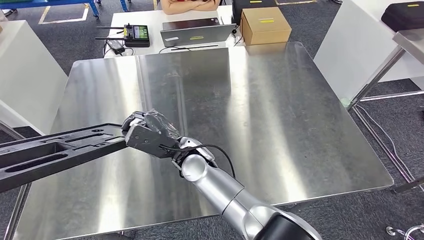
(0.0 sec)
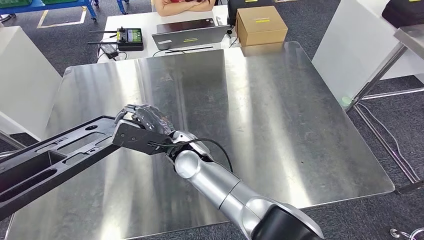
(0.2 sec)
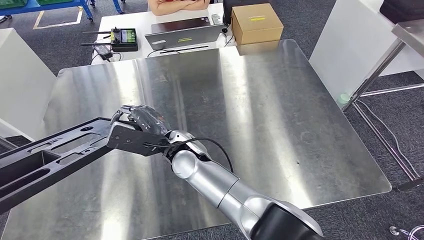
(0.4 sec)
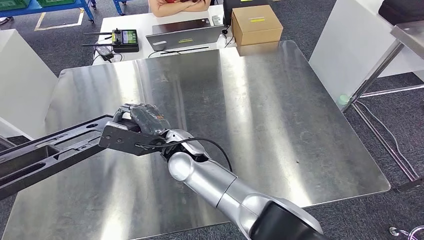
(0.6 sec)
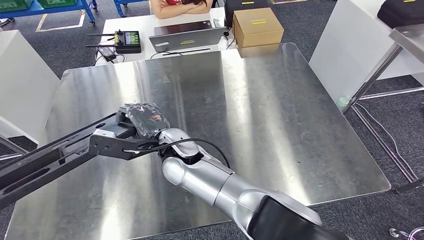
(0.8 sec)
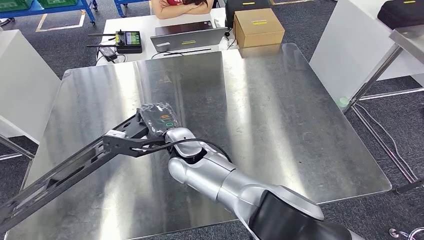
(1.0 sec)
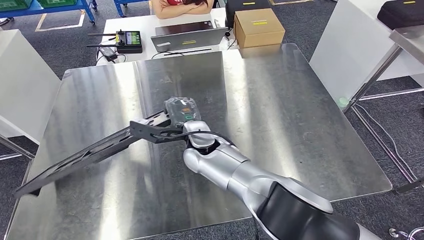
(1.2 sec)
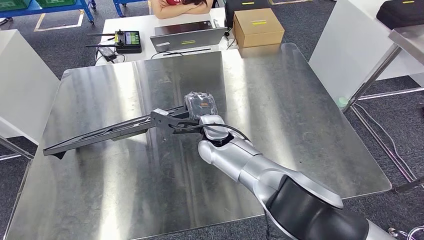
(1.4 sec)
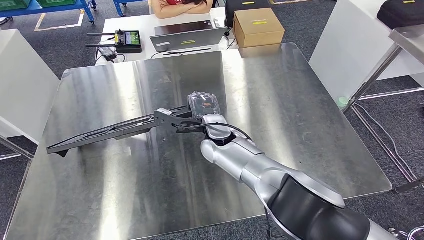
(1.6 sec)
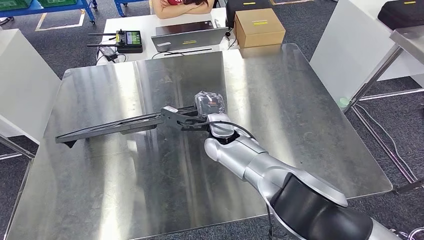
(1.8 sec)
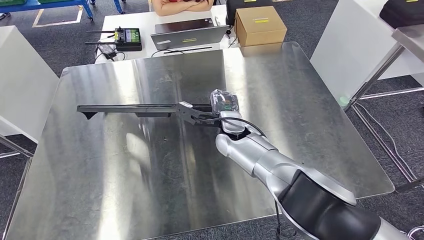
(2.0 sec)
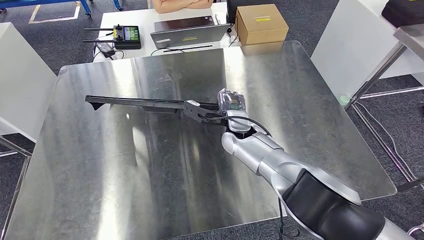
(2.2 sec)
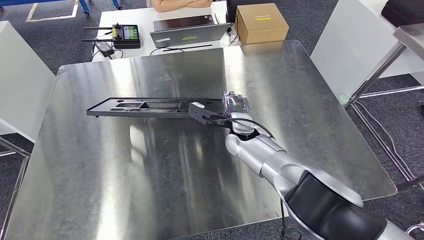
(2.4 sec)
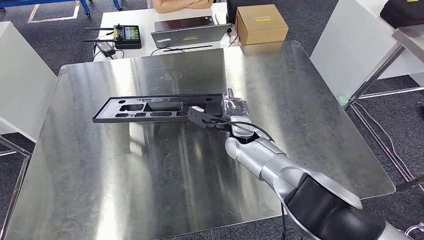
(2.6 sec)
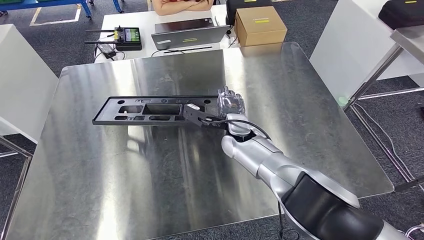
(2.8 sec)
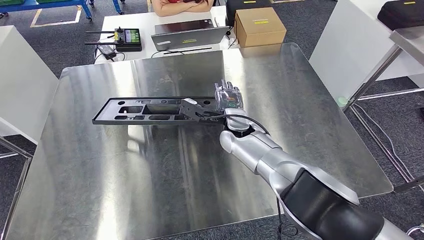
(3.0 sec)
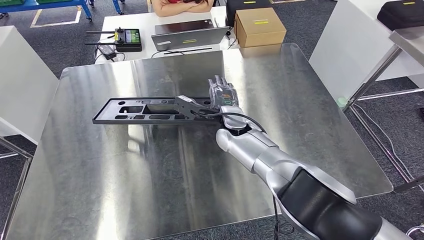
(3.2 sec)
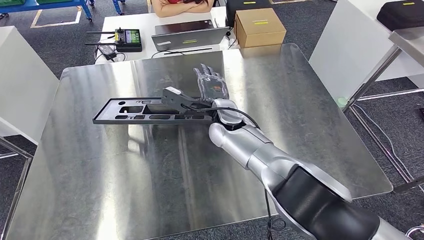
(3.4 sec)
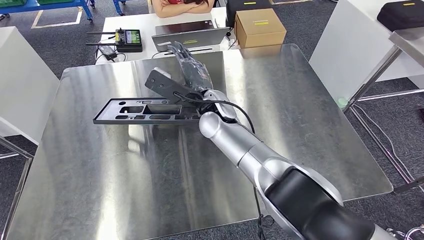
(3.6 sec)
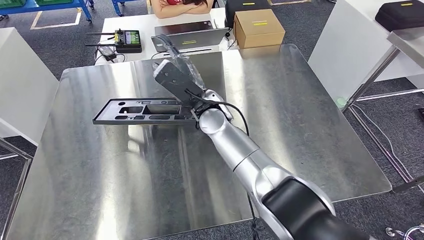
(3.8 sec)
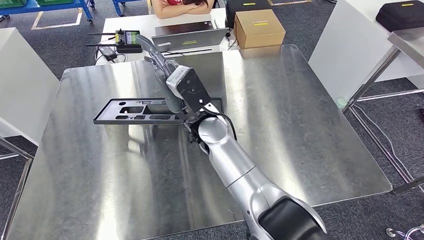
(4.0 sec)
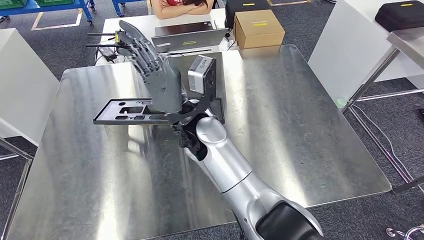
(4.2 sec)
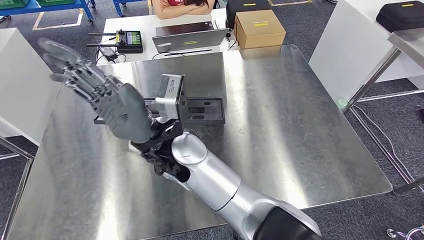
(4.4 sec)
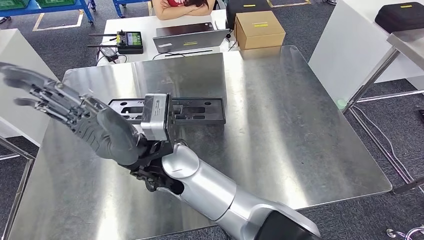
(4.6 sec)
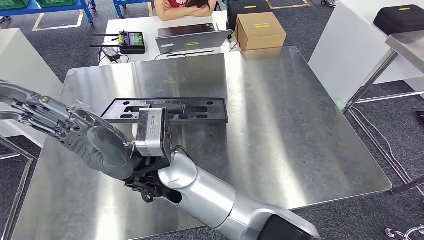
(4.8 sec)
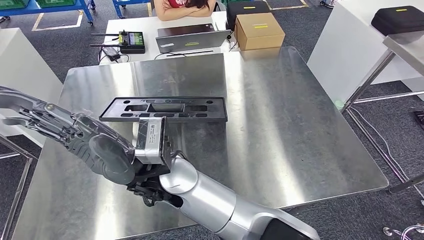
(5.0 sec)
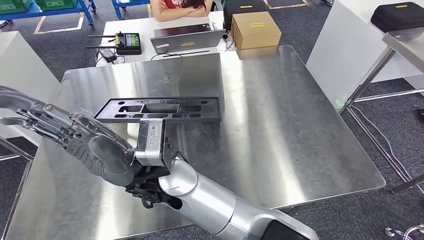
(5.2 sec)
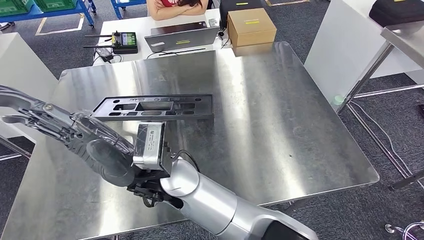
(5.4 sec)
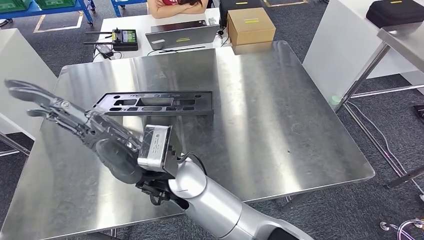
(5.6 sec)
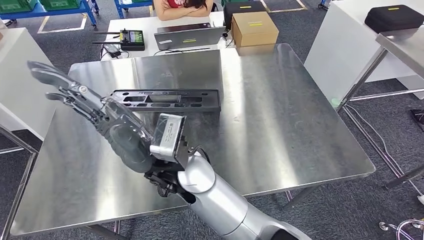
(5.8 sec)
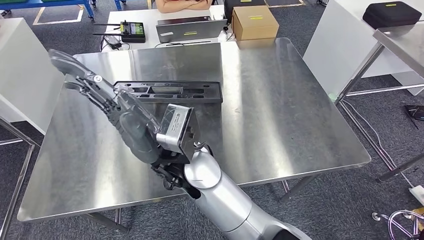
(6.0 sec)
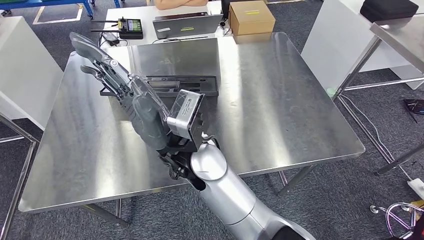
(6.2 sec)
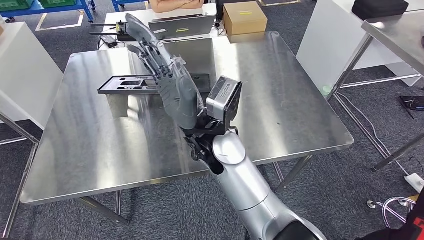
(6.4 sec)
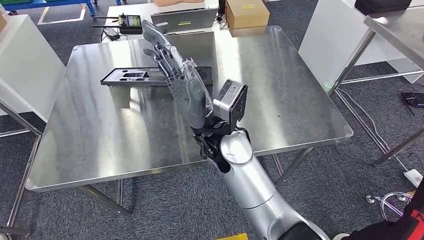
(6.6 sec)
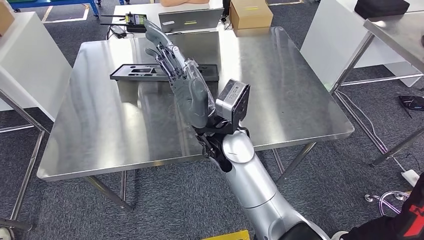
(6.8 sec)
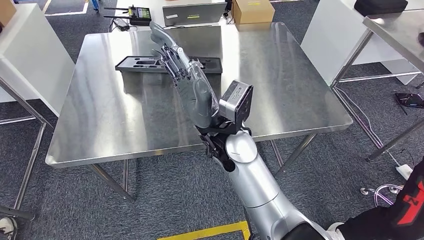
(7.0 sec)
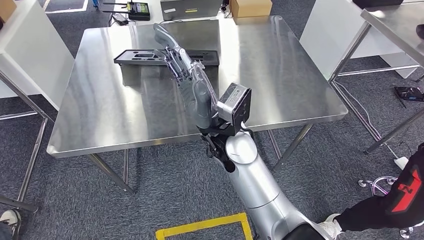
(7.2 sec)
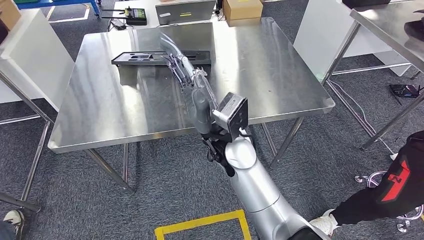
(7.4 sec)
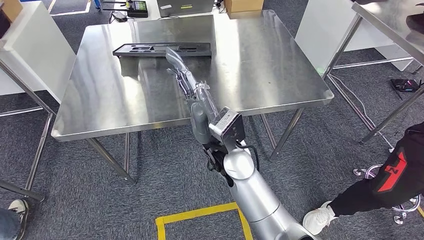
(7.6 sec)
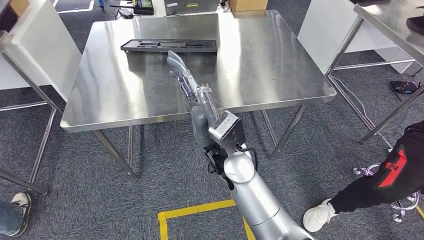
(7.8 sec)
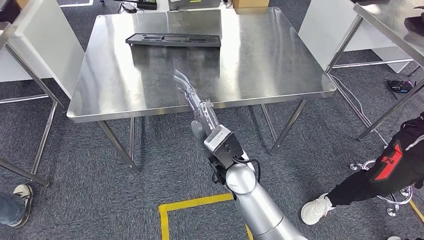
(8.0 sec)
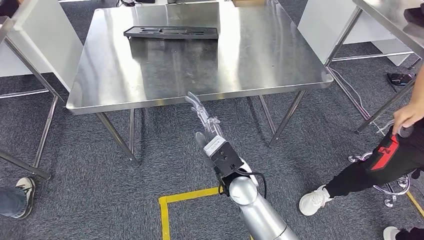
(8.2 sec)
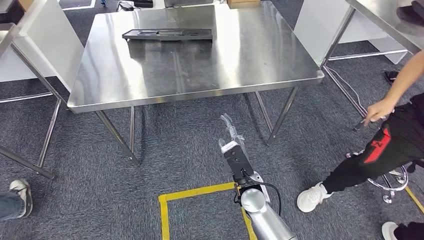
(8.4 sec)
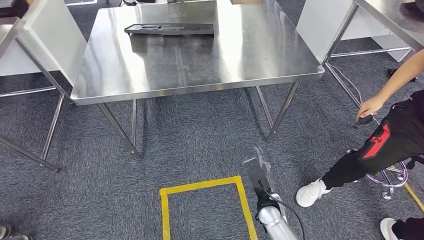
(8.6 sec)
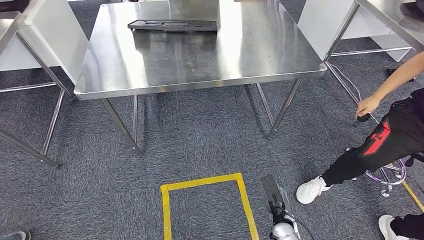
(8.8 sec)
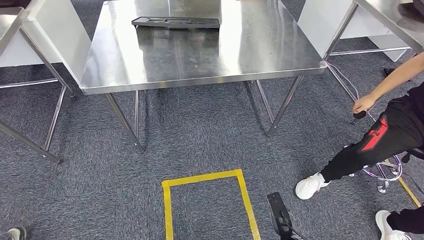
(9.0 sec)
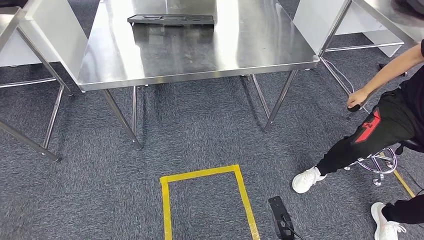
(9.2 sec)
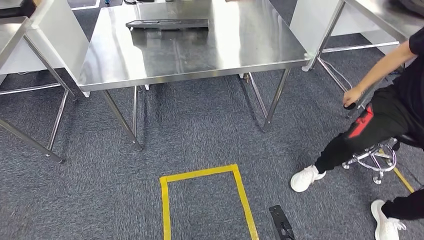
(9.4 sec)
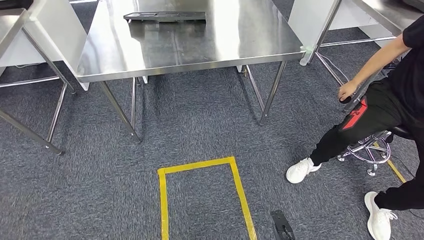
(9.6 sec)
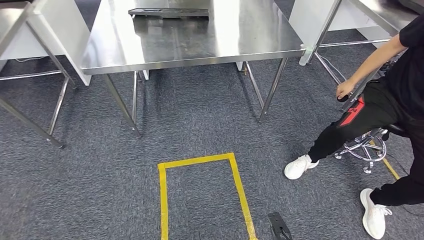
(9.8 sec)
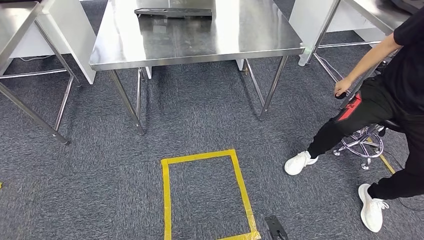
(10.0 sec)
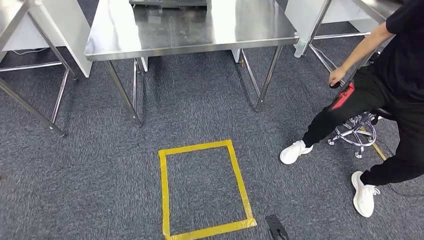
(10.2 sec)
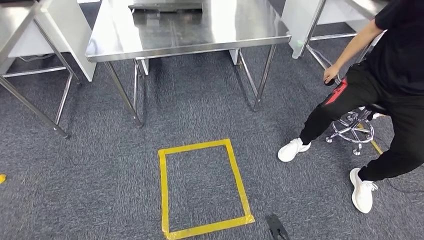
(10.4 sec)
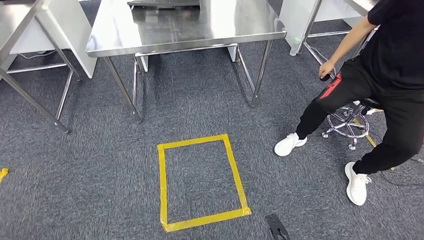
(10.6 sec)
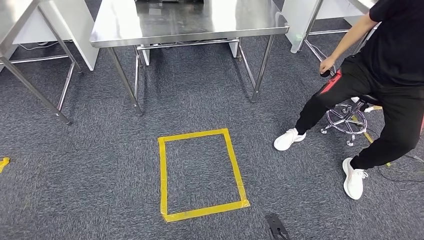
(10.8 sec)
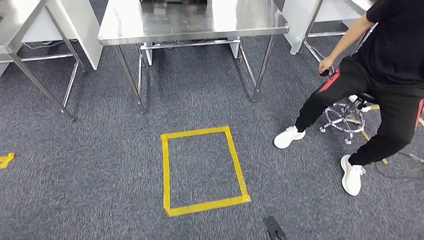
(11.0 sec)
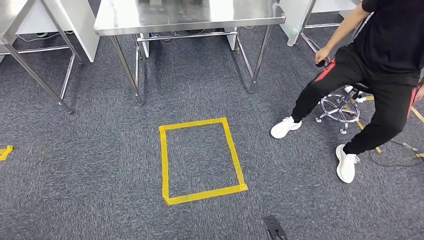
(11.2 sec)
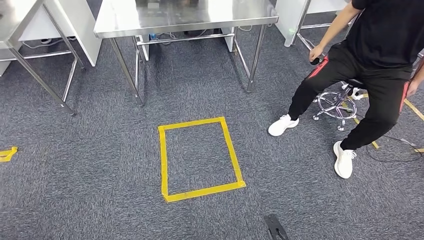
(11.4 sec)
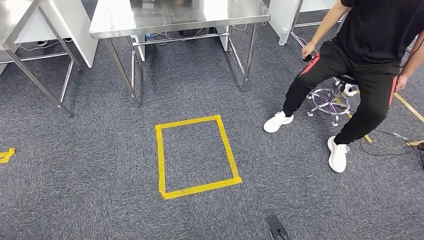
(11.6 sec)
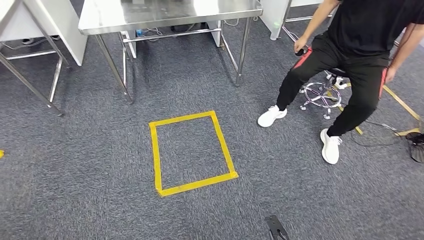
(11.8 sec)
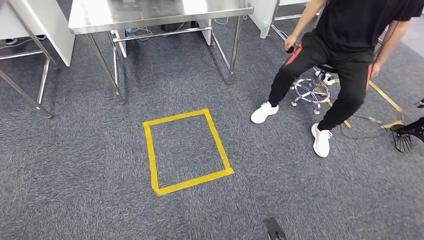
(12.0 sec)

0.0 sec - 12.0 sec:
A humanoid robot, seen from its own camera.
Step, 0.0 sec - 8.4 sec: Insert the large material into the corresponding hole on the workbench.

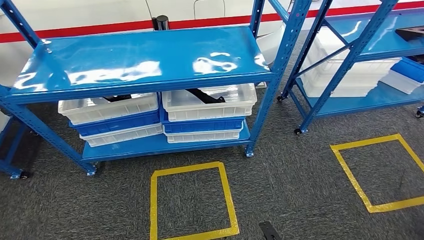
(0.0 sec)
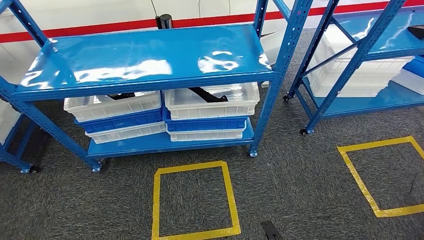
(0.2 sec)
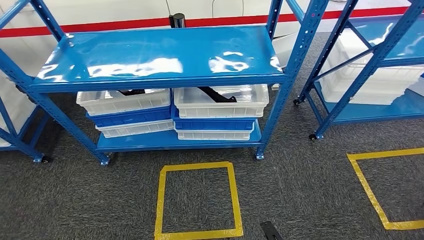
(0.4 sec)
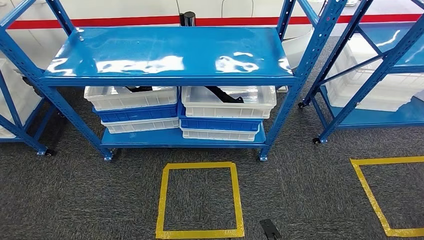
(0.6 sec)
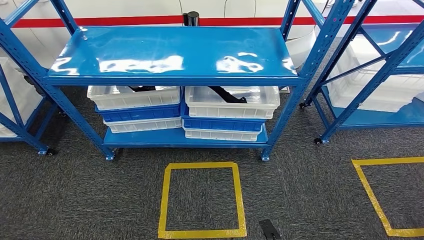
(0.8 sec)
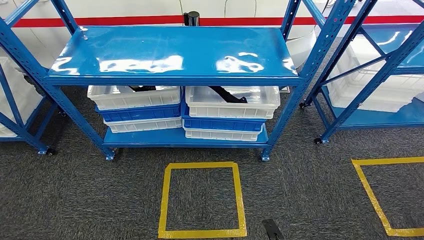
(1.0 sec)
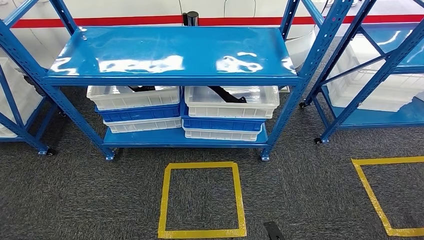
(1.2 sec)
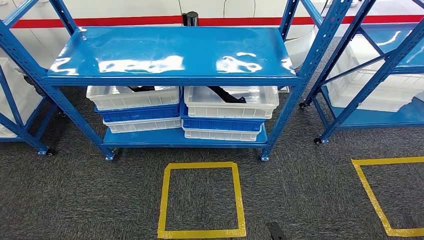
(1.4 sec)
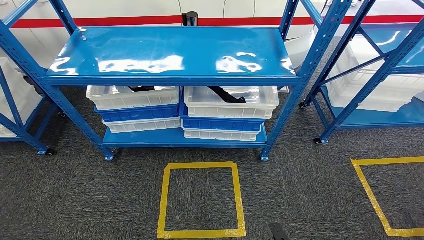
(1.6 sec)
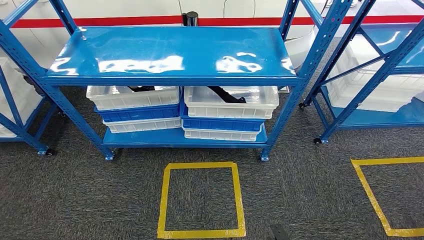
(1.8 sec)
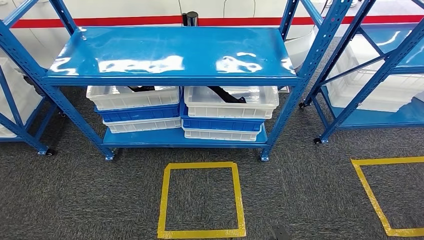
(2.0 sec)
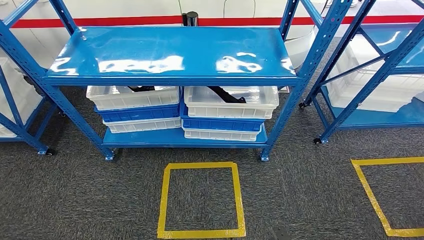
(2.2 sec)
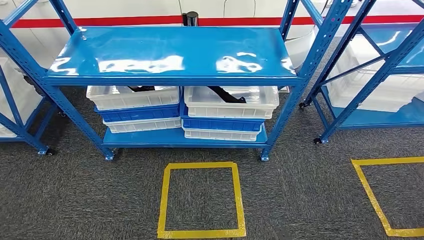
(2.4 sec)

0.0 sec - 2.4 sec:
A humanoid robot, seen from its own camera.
Step, 0.0 sec - 2.2 sec: Move to the initial position of the shelf.
1.2 sec - 2.4 sec: The left hand shifts approximately 5 cm to the left.
